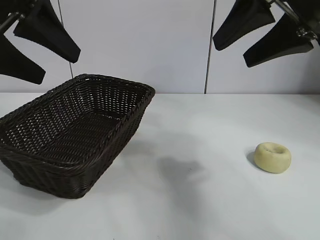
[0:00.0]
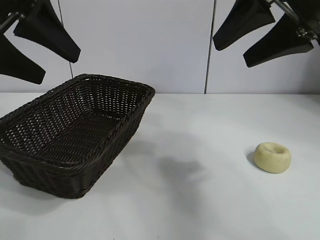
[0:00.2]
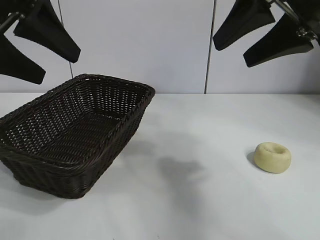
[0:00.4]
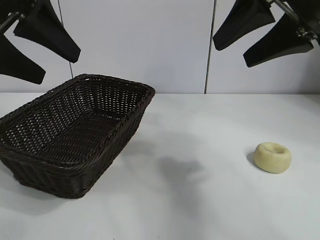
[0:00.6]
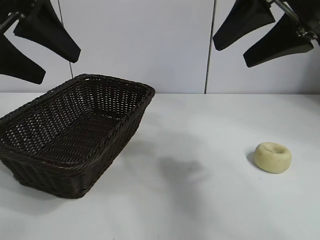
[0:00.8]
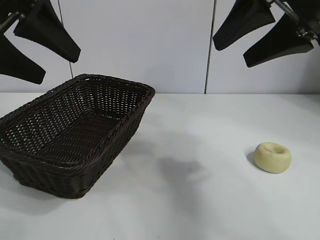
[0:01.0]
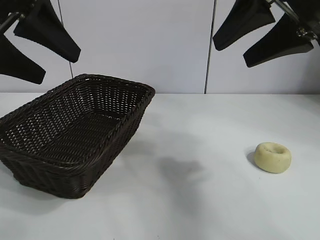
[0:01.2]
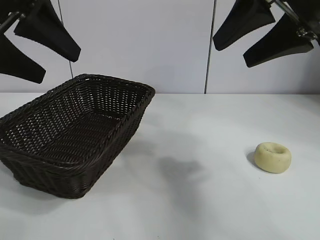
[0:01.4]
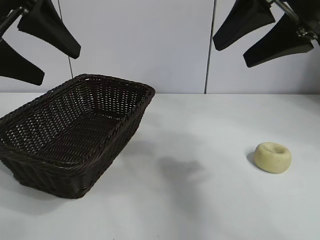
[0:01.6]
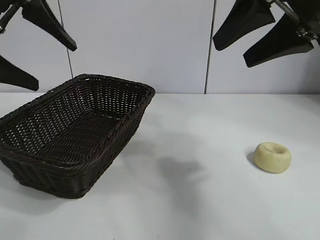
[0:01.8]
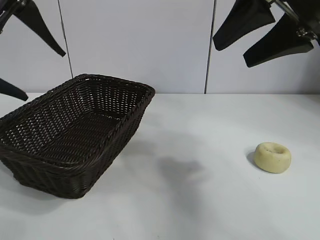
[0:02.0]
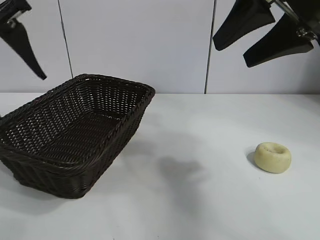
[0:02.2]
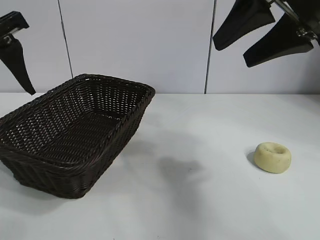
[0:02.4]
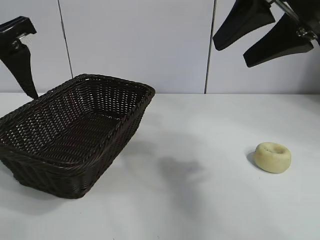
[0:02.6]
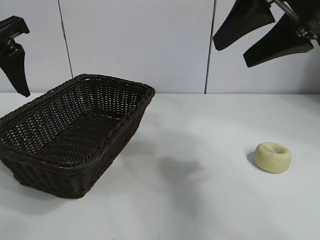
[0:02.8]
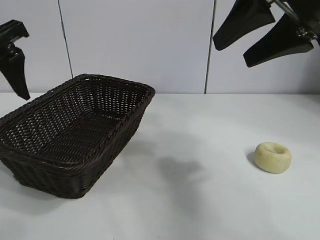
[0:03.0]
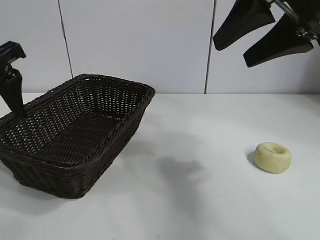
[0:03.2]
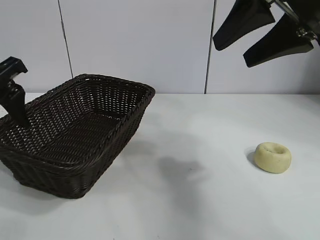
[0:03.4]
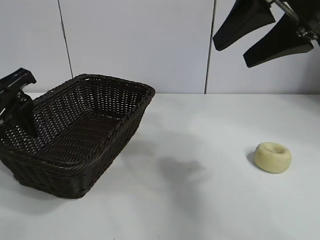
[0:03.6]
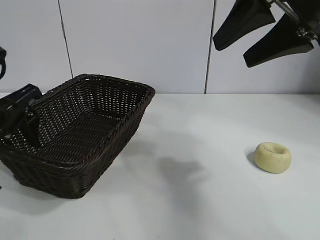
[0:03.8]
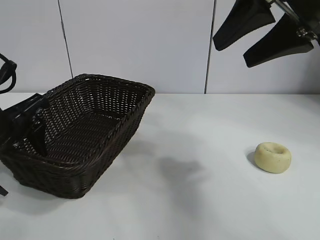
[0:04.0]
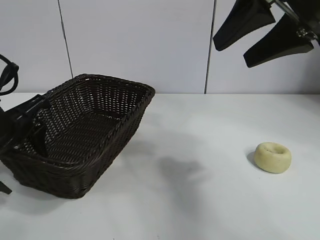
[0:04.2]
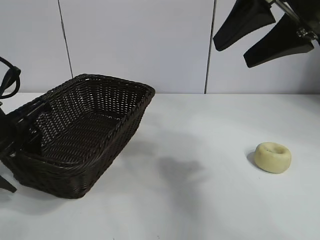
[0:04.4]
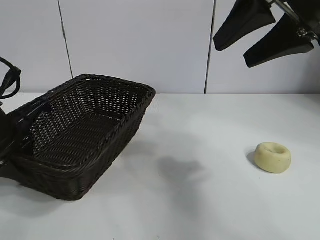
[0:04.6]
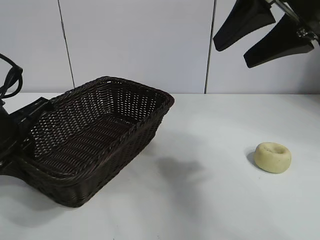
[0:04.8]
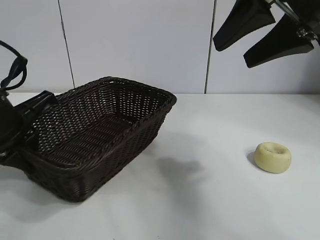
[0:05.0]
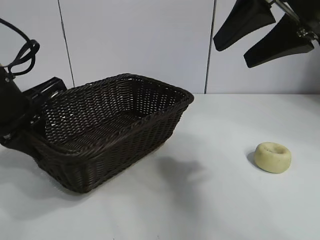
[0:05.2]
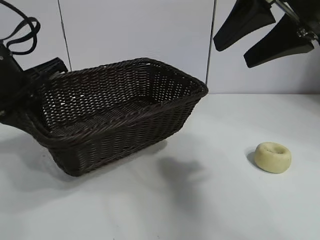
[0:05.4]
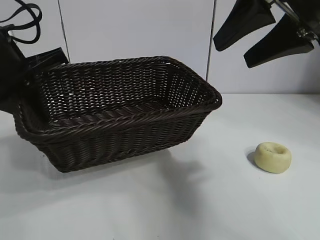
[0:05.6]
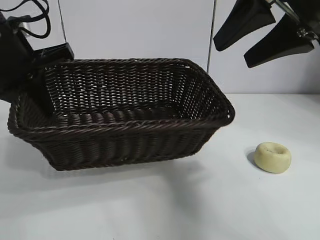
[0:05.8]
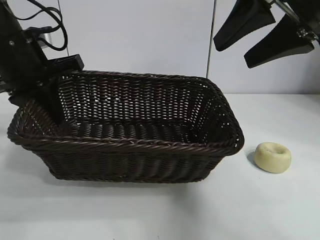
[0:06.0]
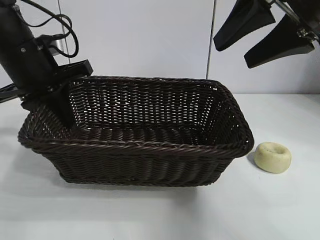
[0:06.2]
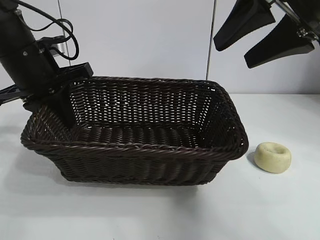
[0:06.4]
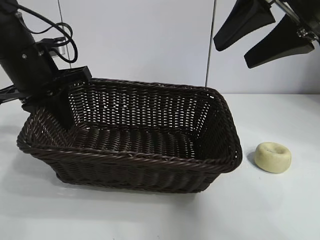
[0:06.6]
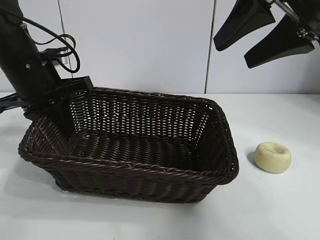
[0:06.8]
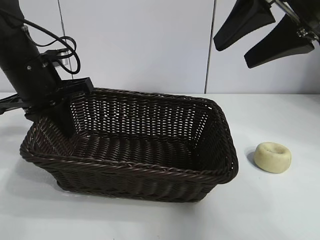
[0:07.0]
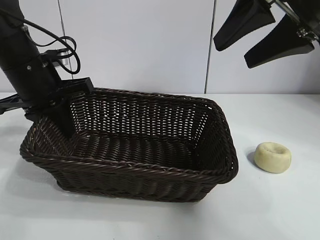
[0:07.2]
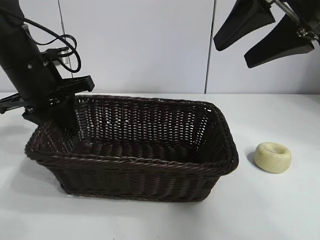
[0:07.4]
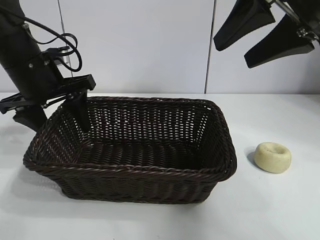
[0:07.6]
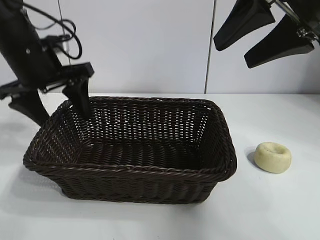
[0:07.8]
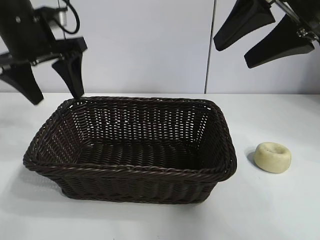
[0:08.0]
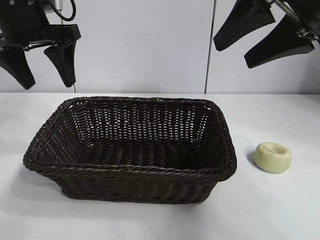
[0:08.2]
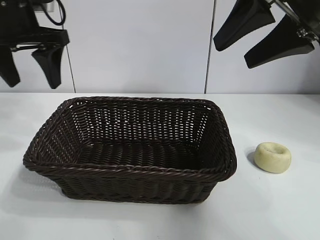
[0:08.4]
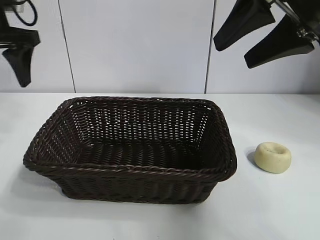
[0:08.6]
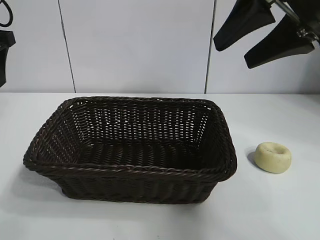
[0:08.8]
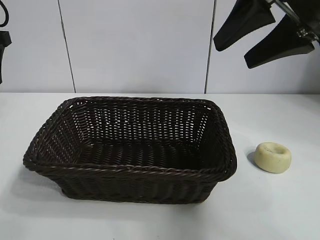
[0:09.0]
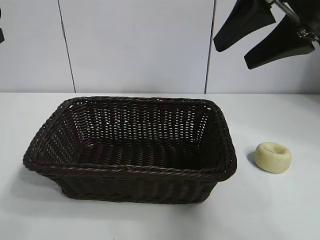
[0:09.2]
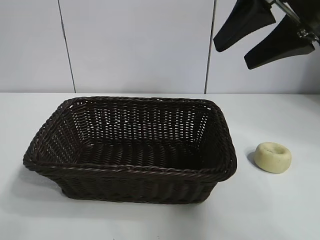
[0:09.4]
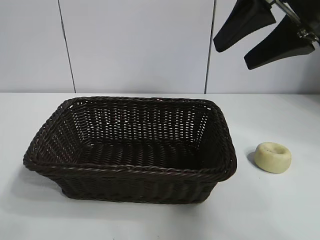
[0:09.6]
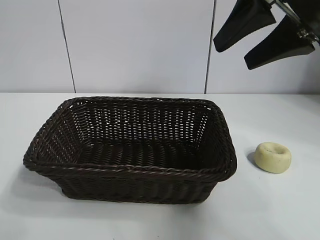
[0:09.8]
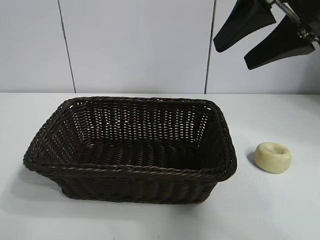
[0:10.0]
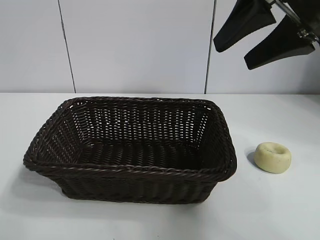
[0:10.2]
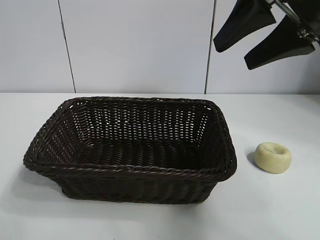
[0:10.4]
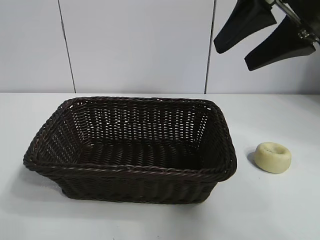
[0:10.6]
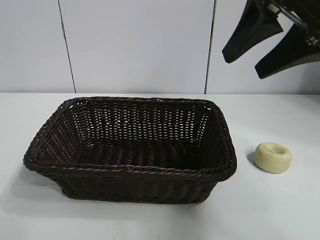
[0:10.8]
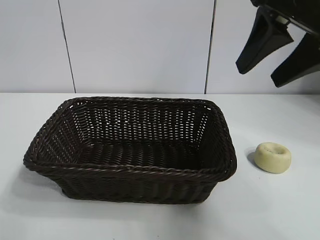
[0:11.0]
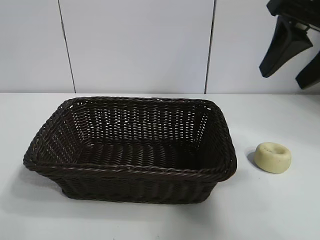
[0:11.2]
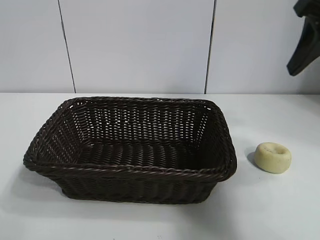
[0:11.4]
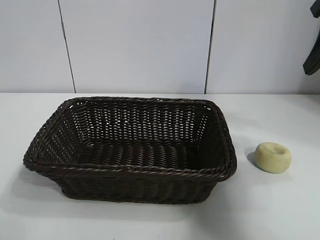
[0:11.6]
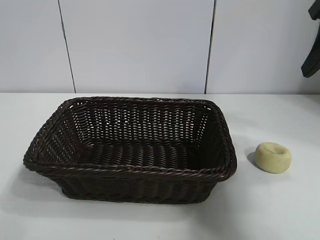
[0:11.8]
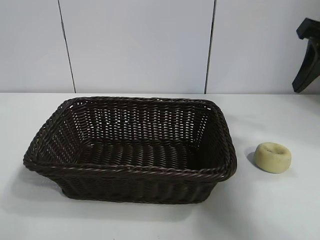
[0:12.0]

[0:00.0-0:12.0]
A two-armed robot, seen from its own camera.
Task of the whole recording: pick up the egg yolk pastry and put it into the basket.
Step, 0:01.6 to 0:04.6: Grasp the basket with left gripper.
Step, 0:04.8 to 0:07.8: Place the basket in the center of view with left gripper.

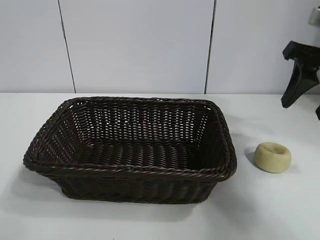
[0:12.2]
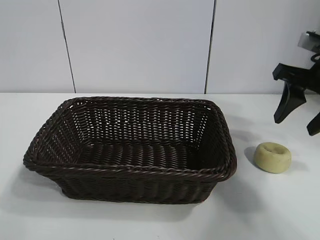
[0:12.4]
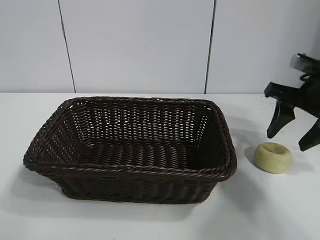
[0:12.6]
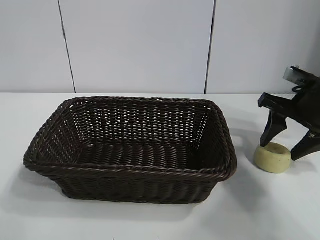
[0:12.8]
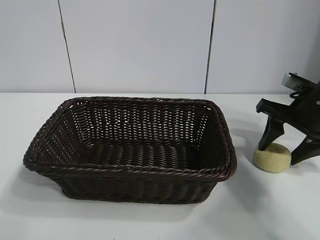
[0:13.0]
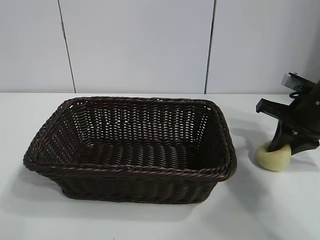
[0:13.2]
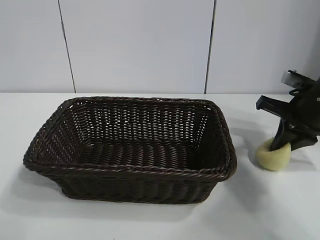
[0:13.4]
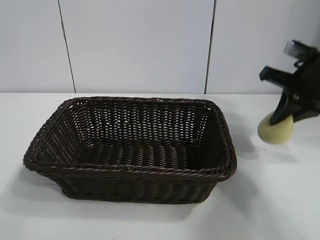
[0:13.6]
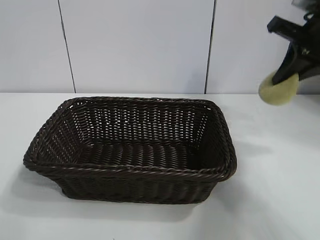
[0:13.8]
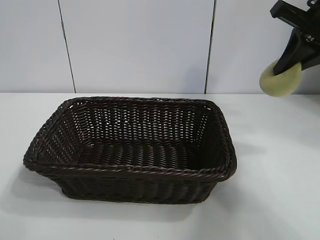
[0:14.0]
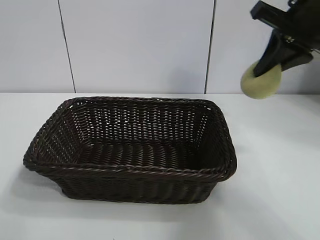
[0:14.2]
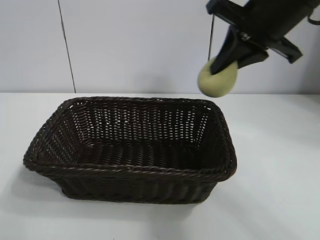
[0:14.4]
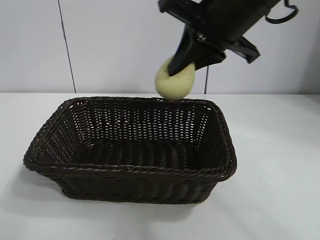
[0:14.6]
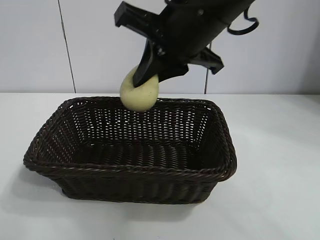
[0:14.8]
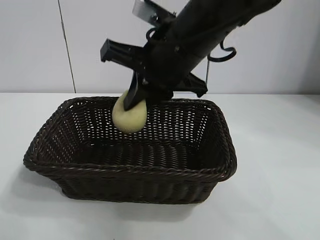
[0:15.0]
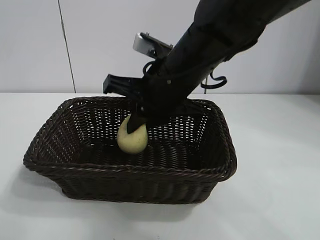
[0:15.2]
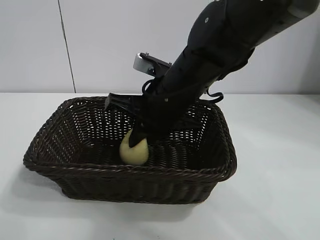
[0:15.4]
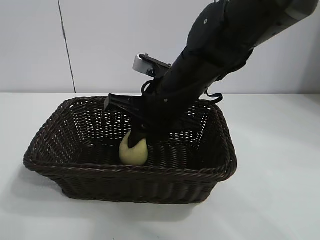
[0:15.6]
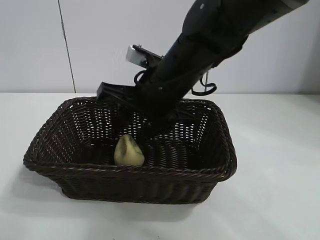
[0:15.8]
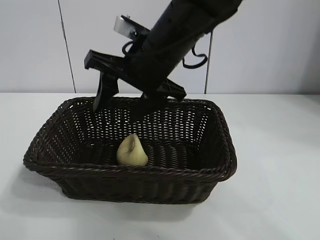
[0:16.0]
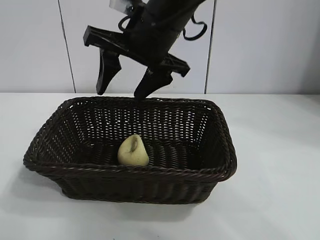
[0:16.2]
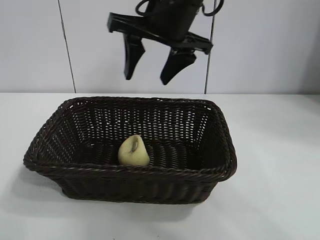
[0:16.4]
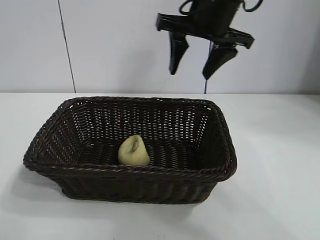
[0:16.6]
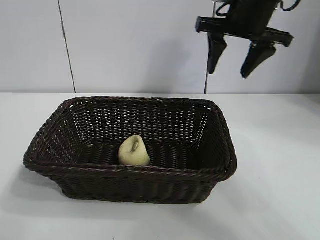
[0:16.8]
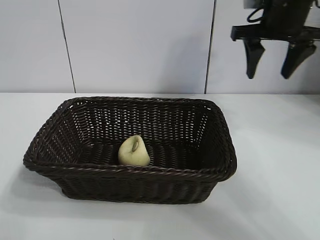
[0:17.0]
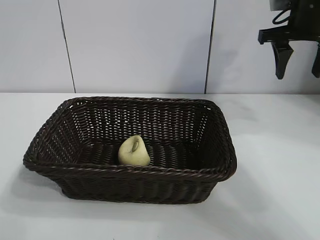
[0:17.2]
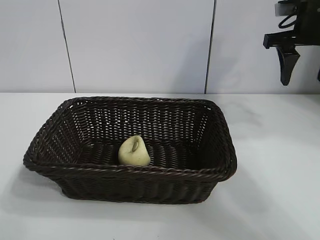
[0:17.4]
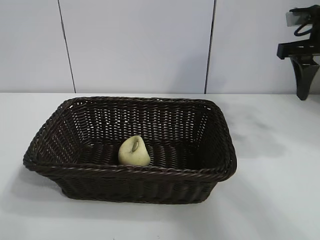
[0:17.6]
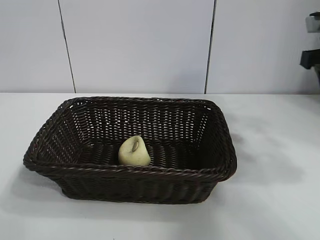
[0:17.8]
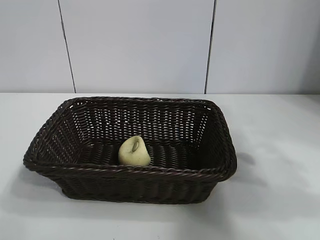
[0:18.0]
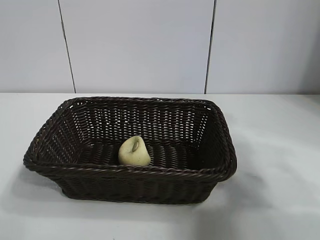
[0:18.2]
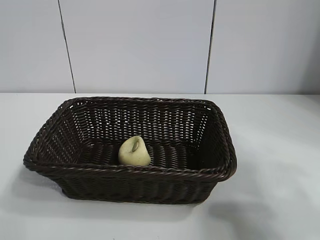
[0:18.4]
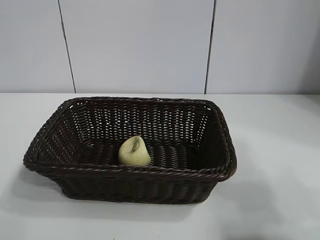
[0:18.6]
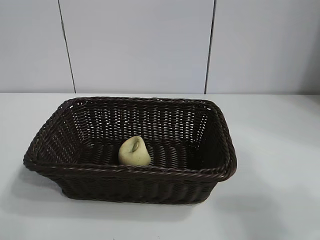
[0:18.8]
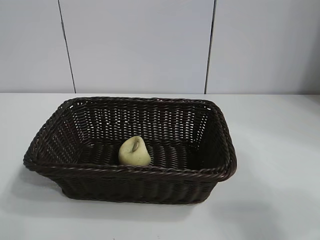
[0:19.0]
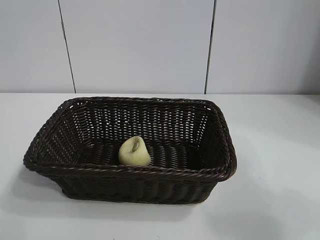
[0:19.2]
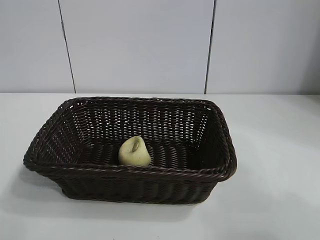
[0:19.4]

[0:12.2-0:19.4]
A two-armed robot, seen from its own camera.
Task of the whole recording: pick up the egg yolk pastry and put it into the basket.
Step, 0:13.4 to 0:15.8: Place the egg yolk pastry in the basket with right gripper.

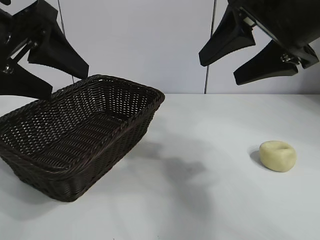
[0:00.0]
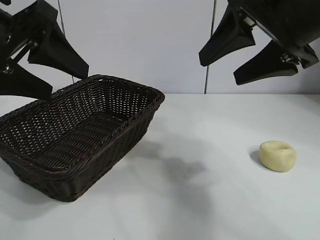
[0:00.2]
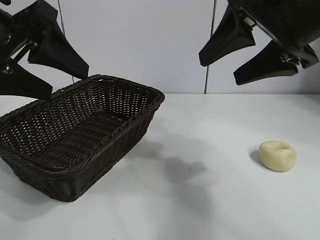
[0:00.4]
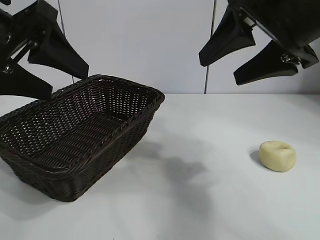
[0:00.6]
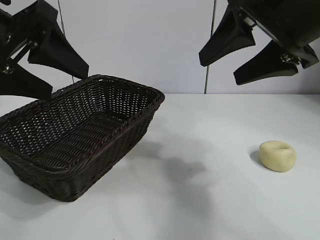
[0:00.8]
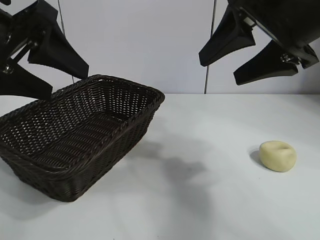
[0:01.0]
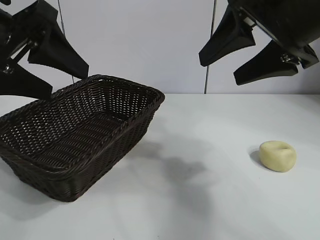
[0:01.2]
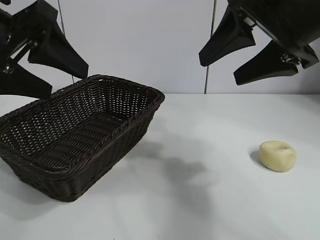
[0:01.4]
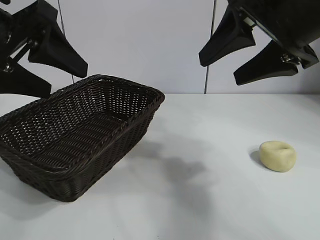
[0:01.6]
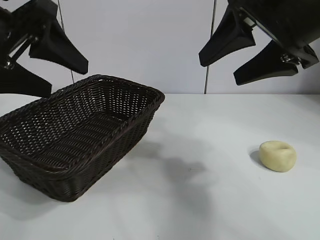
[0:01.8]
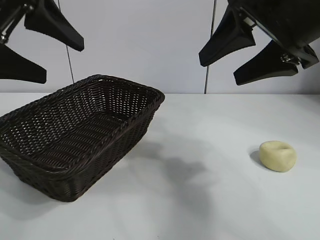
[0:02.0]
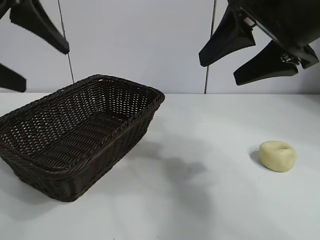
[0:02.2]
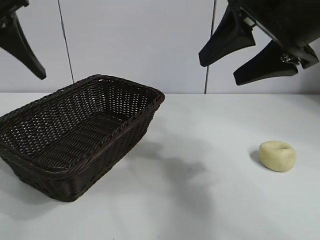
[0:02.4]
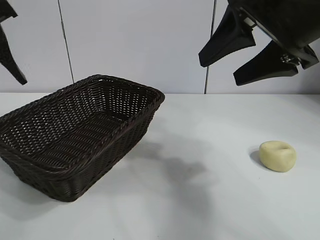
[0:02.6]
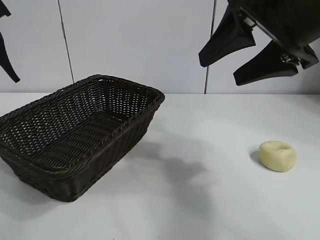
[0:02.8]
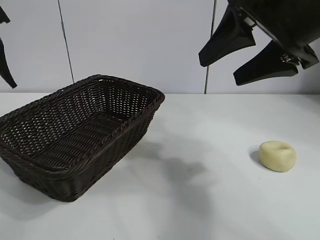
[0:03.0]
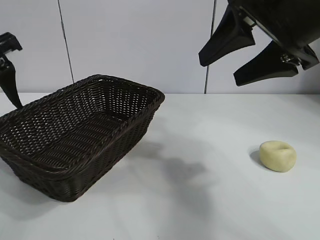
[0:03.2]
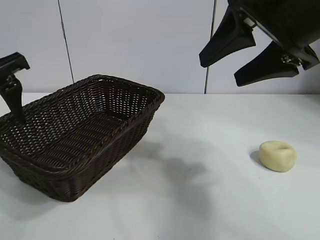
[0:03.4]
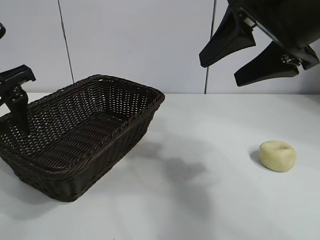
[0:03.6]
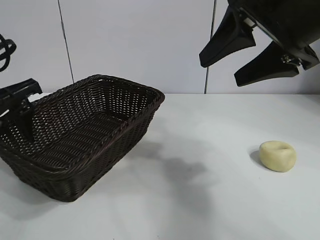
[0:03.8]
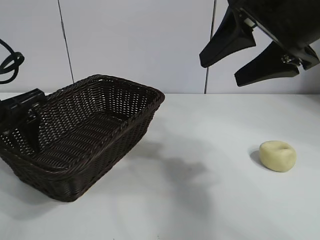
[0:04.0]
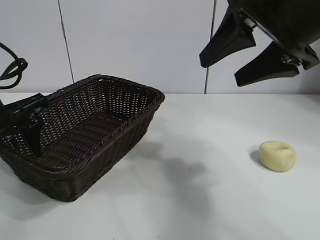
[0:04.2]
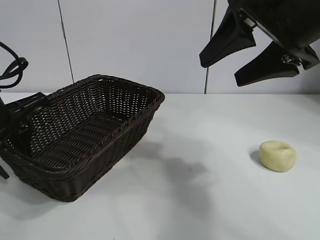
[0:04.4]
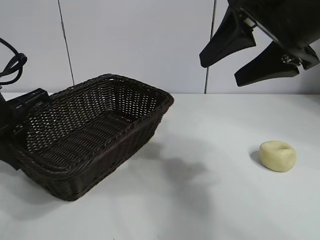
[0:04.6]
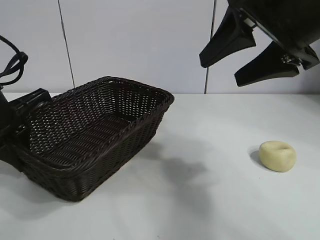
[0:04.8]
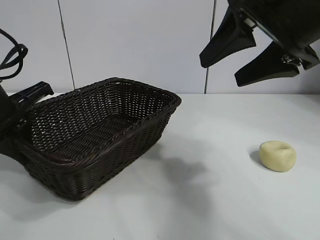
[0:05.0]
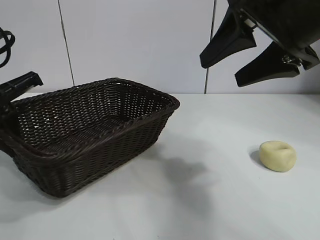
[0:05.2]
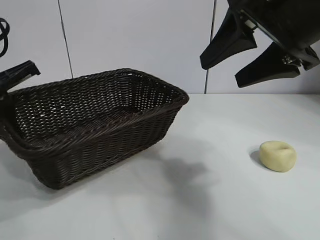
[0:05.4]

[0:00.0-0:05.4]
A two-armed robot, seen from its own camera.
Task of the whole recording: pick up the egg yolk pastry and put it into the basket.
Step, 0:01.6 to 0:04.6: Grasp the basket with left gripper.
